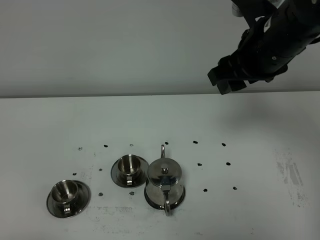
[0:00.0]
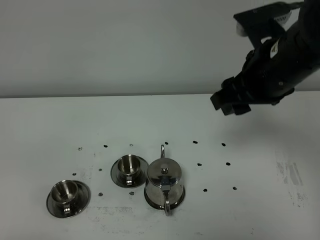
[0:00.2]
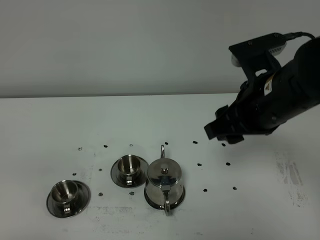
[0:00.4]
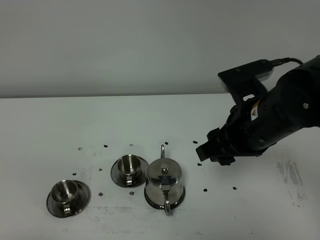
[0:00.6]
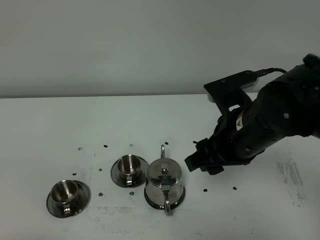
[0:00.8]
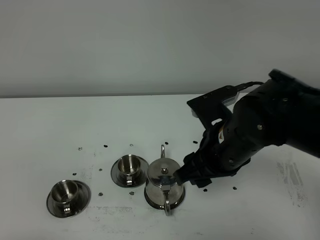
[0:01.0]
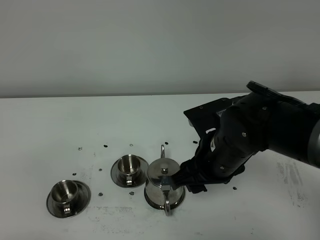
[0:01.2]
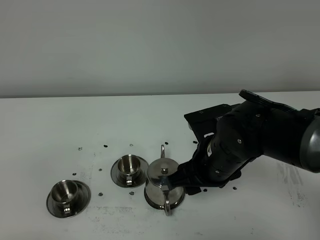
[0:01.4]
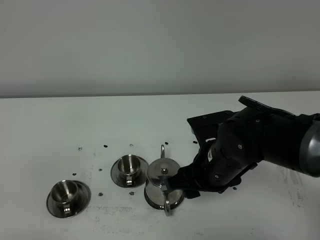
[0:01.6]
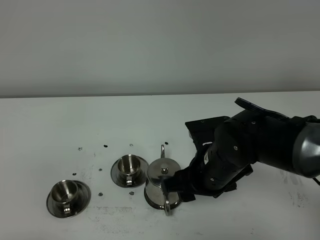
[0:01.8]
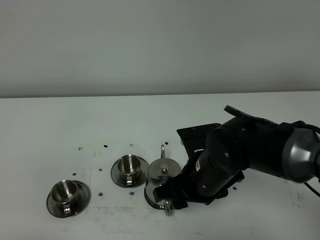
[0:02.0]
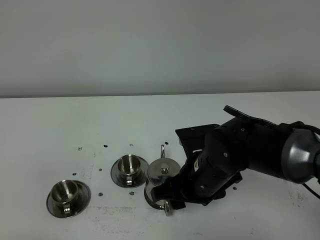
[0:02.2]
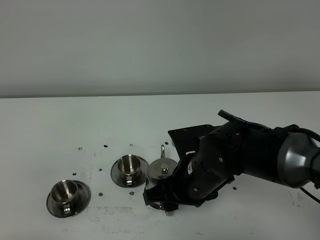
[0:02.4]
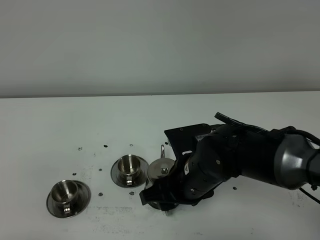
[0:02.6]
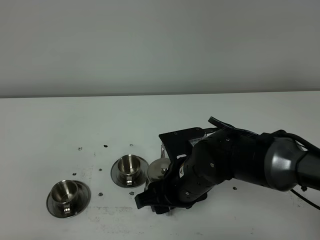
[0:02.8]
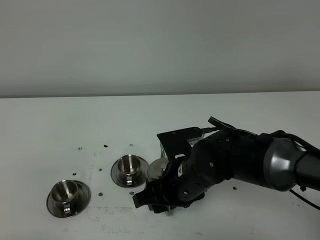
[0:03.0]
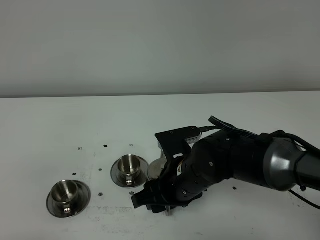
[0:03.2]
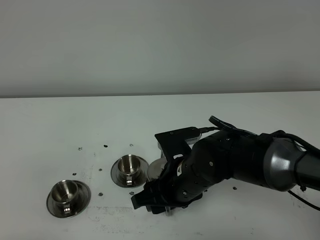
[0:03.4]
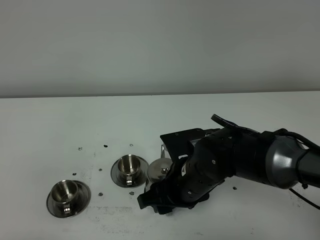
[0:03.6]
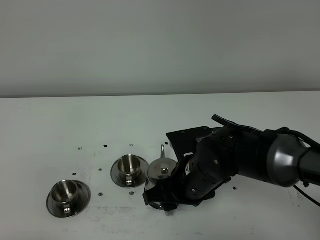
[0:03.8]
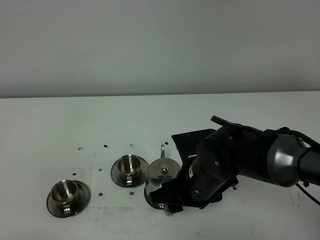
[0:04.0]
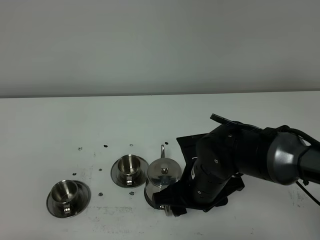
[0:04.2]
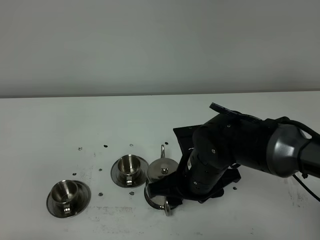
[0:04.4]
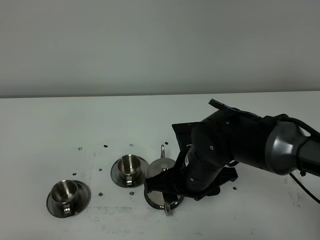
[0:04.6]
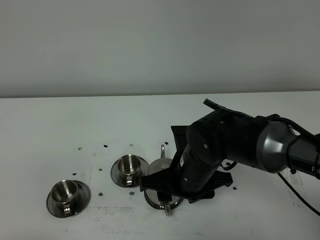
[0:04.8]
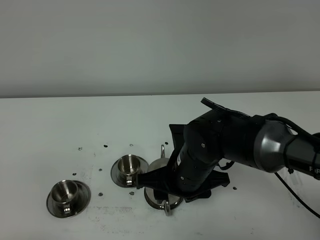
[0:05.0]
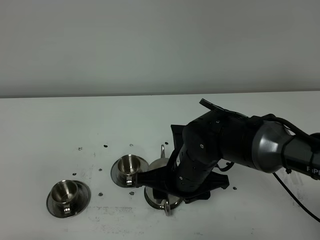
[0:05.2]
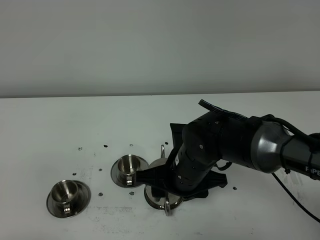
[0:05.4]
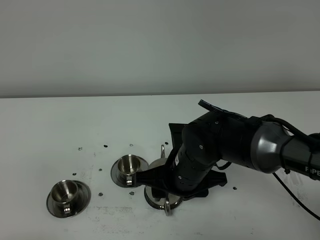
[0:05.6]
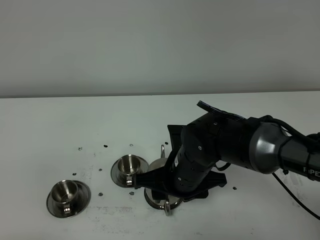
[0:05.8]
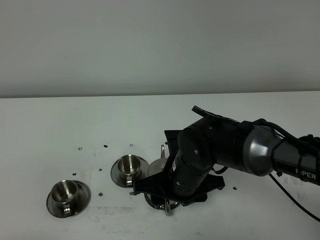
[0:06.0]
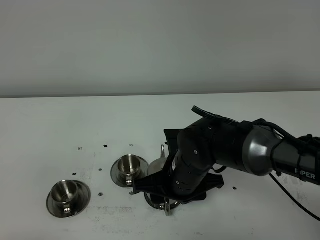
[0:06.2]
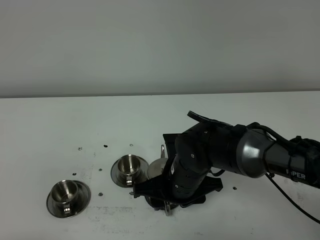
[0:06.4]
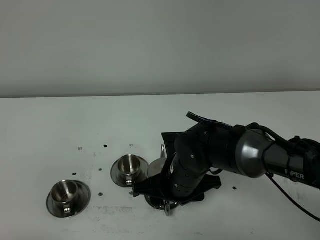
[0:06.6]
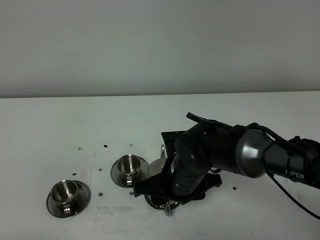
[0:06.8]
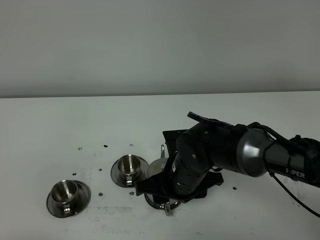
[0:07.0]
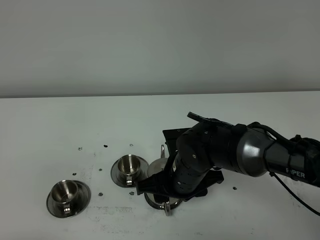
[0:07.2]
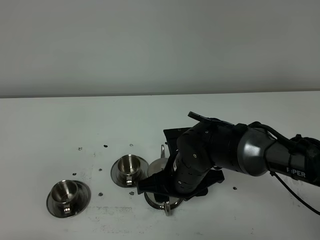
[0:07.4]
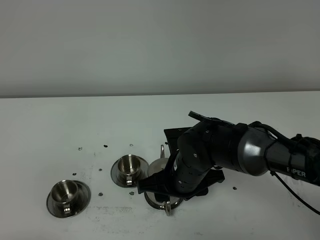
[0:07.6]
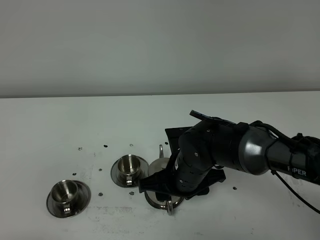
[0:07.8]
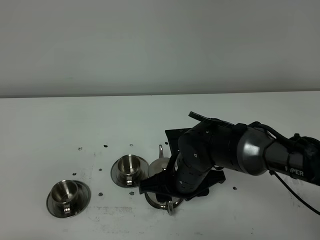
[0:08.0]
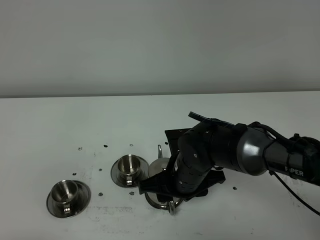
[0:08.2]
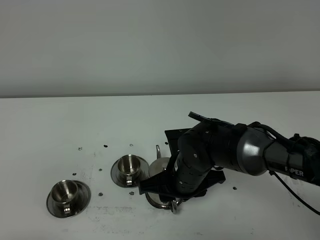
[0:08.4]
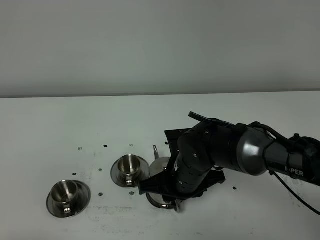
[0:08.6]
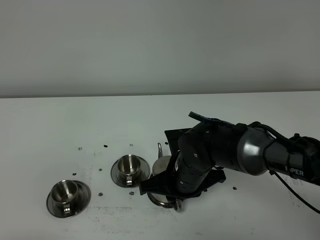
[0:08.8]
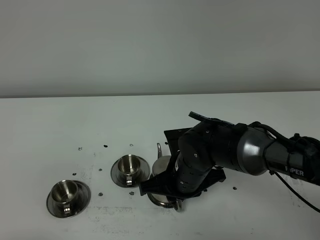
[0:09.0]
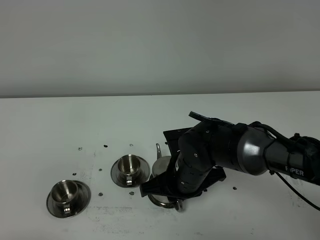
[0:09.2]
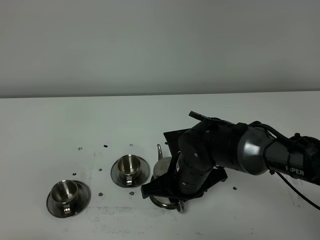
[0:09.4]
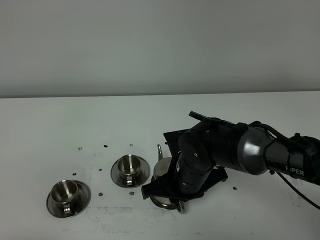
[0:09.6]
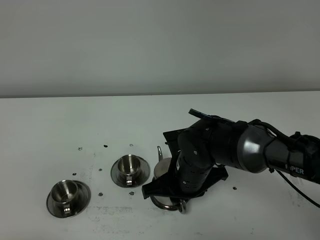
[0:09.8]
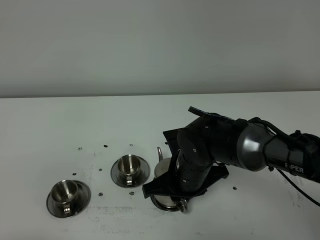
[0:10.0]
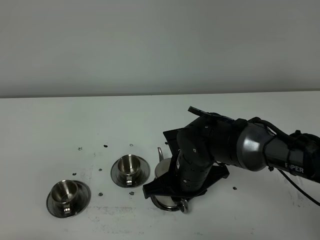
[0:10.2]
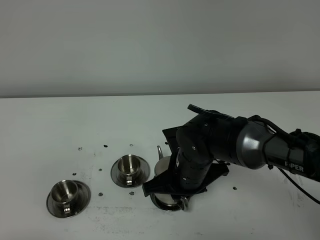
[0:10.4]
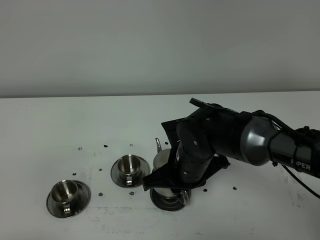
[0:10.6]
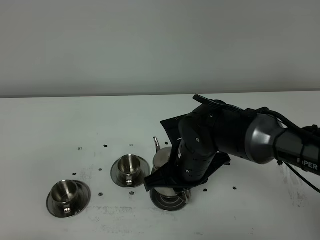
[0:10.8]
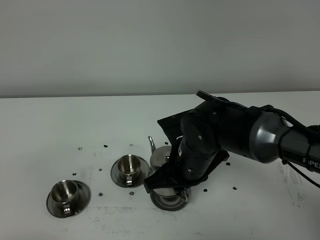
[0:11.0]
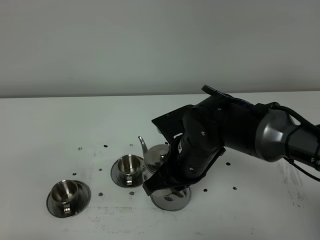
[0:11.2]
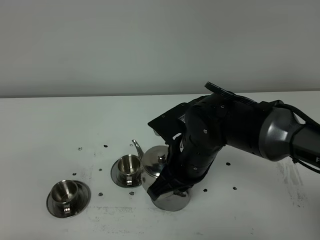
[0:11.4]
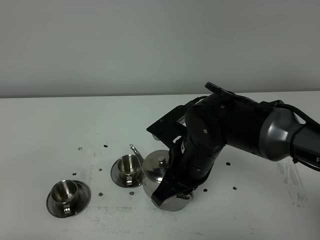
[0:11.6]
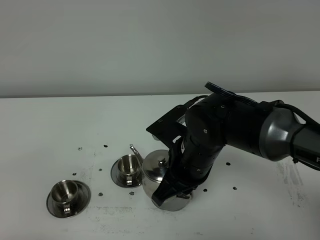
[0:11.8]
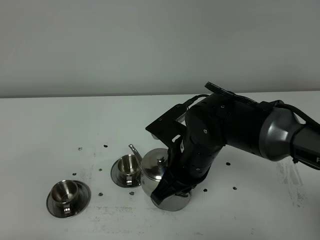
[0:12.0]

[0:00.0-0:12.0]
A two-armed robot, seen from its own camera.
Task of the whole recording: grasp the stainless steel teapot and pour the tea into the two stainless steel teacups one by one, put the stainless steel teapot back in its original place.
Step, 0:00.0 to 0:10.8: Pick up the teapot with the right gripper.
0:00.0 to 0:01.6: The right gripper travels downward, to the left and backward by roughly 20 cm.
0:01.6 to 0:03.0: The right gripper shifts by about 5 cm.
0:03.0 to 0:04.4: The grippers stay close to where they were, moving slightly.
0:04.4 to 0:07.6: The grippers stay close to where they were, moving slightly.
0:07.6 to 0:09.0: The right gripper closes.
0:09.0 to 0:10.4: The grippers move only a little.

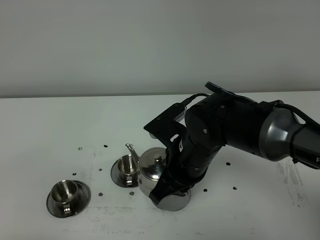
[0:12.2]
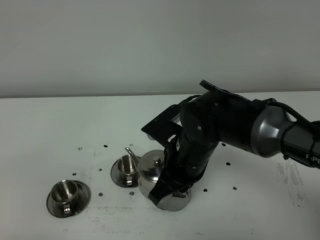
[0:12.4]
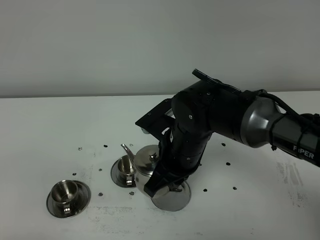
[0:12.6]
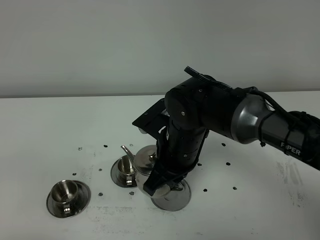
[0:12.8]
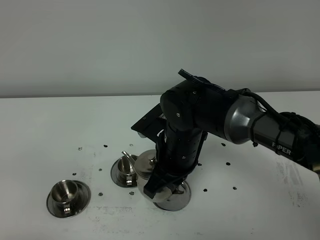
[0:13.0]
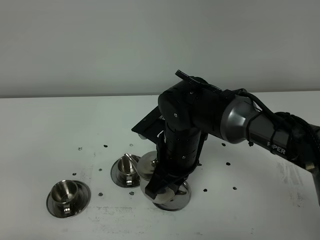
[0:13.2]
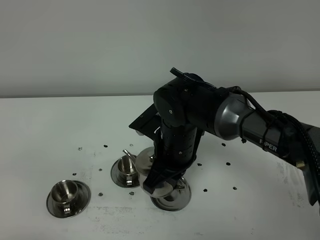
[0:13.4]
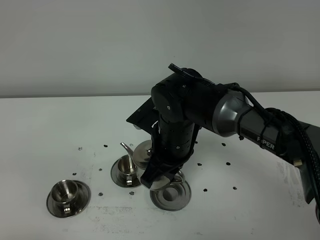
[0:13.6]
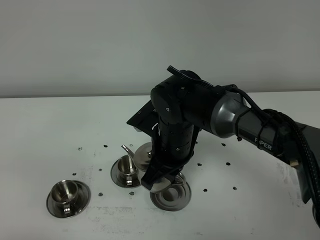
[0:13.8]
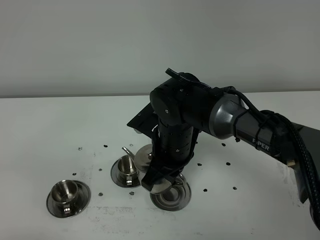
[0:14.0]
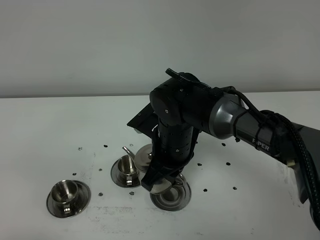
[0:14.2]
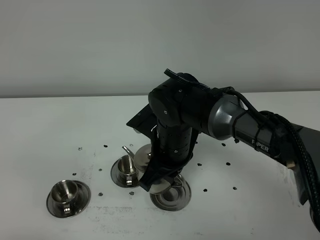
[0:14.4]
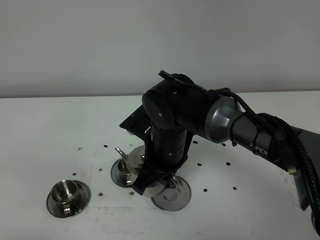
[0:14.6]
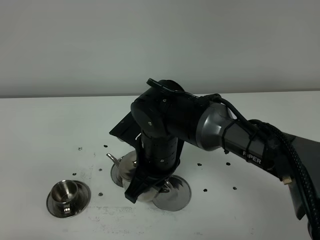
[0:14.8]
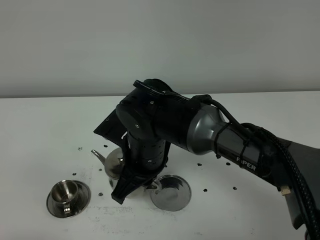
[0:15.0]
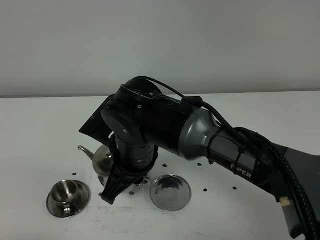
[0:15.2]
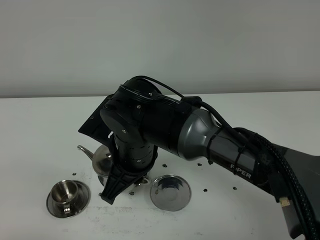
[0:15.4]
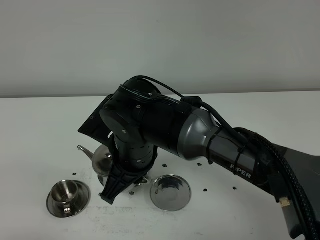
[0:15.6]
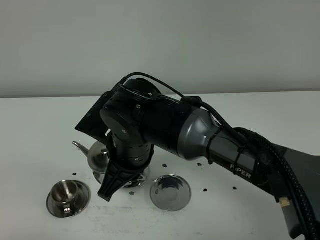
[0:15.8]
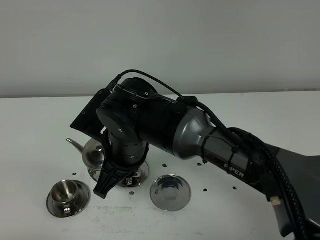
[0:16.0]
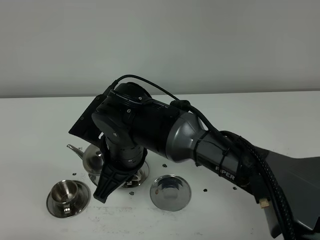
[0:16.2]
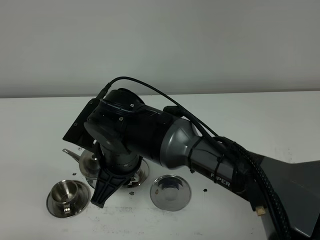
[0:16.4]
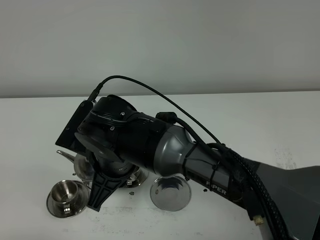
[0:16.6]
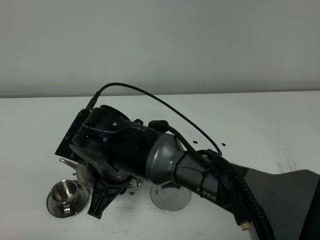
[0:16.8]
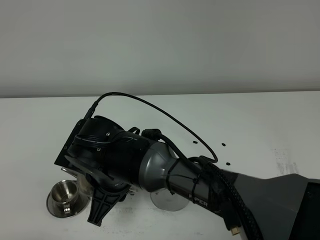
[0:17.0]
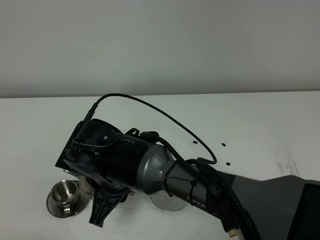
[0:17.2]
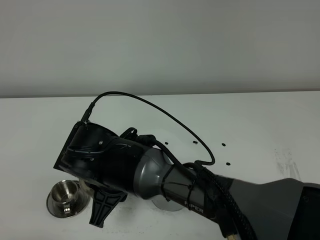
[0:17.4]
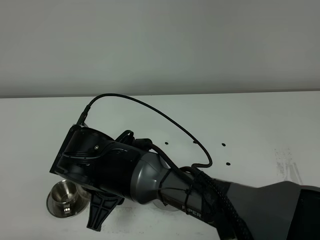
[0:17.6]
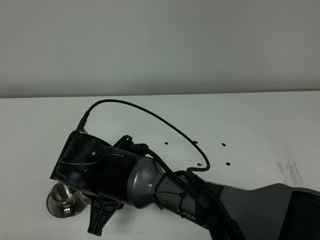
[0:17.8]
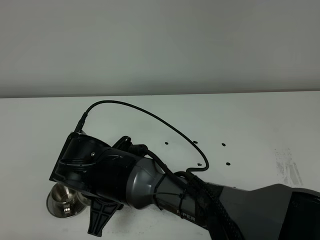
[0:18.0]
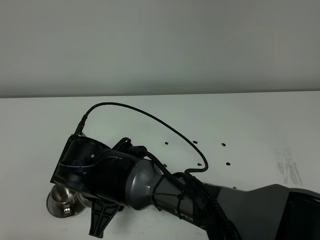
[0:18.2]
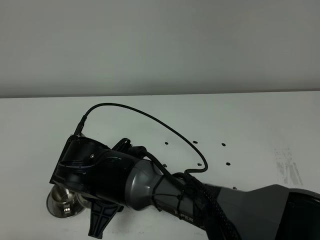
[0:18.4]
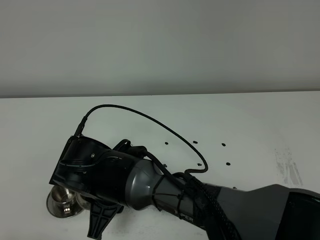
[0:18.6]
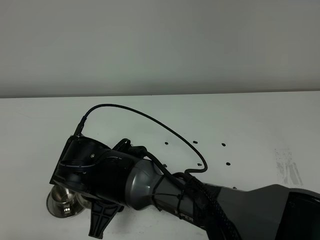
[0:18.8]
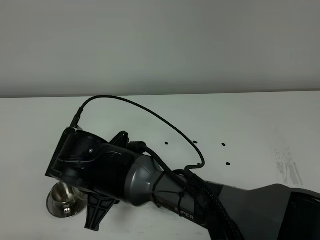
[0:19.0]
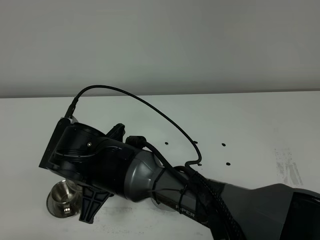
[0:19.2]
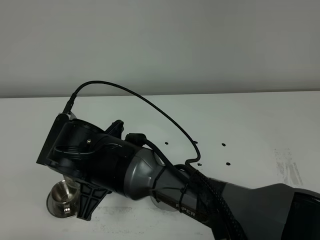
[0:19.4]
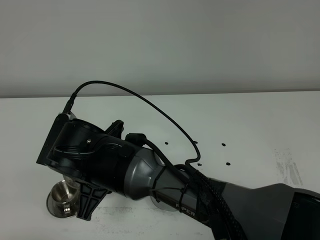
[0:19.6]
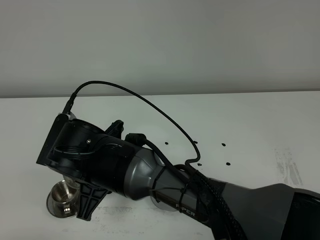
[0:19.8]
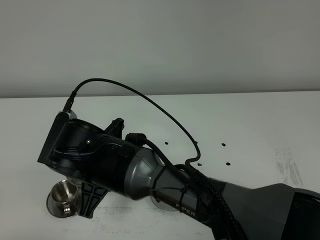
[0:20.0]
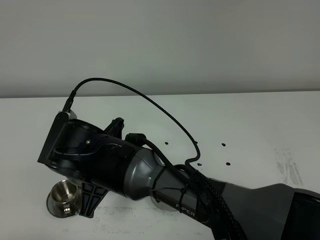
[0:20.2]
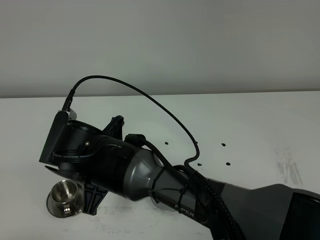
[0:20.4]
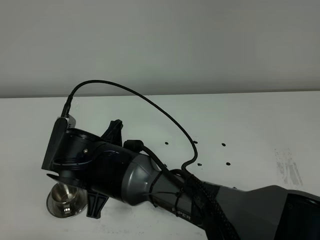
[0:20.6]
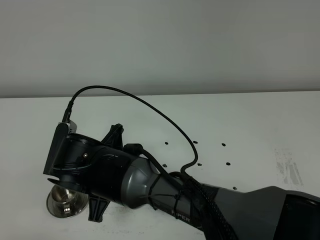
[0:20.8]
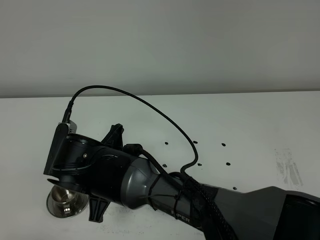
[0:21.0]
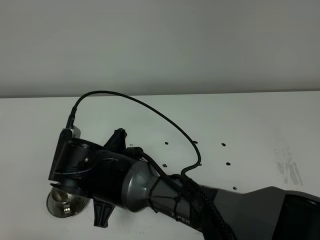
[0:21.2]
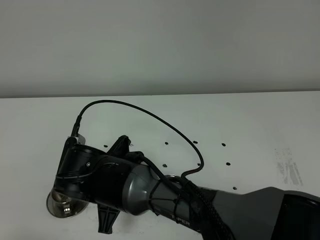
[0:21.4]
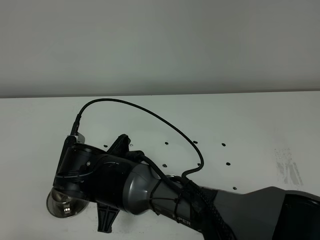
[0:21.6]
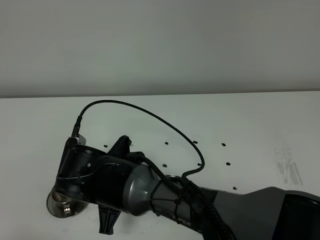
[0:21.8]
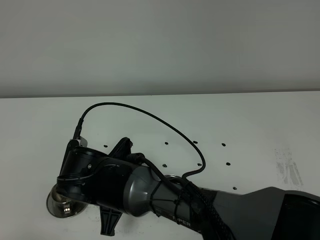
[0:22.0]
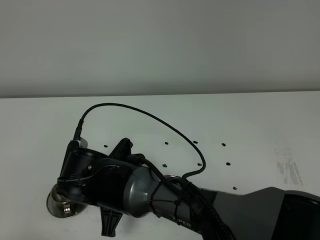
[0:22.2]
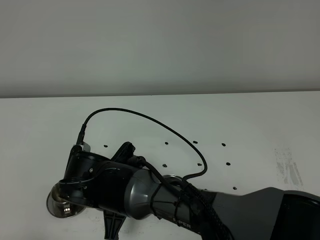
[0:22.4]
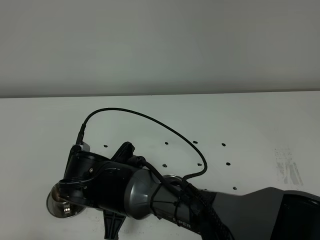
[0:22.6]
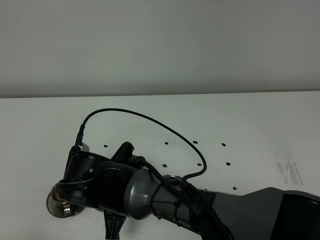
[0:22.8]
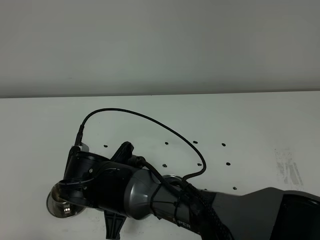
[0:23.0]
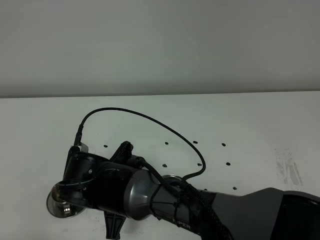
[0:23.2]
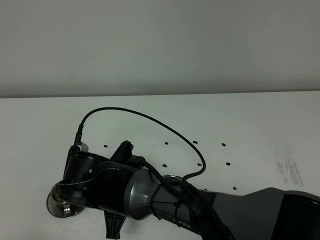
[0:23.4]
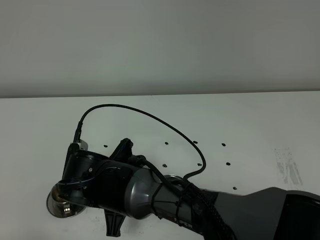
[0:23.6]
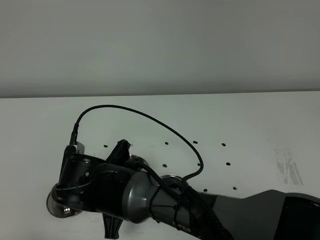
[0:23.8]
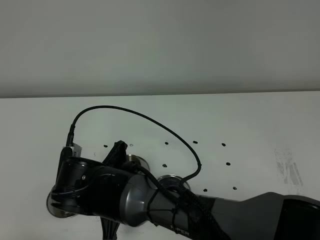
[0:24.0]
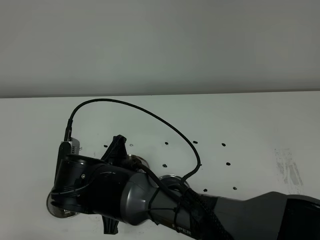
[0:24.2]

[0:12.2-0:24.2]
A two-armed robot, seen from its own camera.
Task of the whole recording: grasp the stainless steel teapot and pour the tea into the two stainless steel teacups one by one, put the stainless steel teapot back in its original place.
0:12.2 to 0:13.8: The right gripper ends up approximately 5 cm from where it was.
0:13.8 to 0:15.2: The right gripper shifts roughly 5 cm to the left.
0:16.6 to 0:18.2: The right gripper shifts by about 5 cm.
0:18.2 to 0:24.2: The grippers stay close to where they were, moving slightly.
